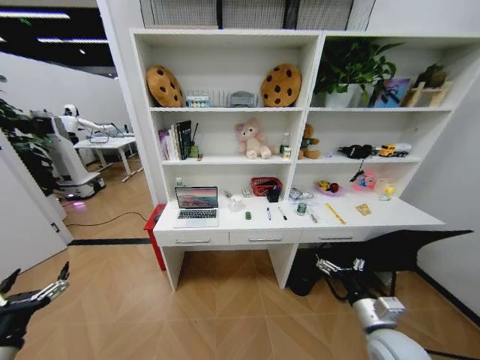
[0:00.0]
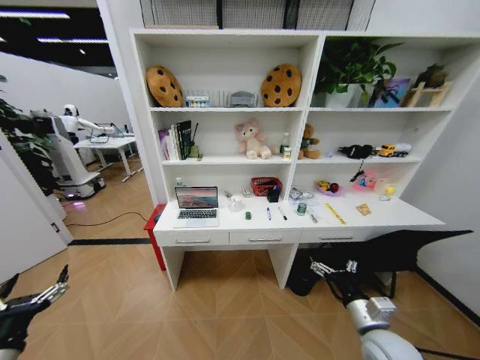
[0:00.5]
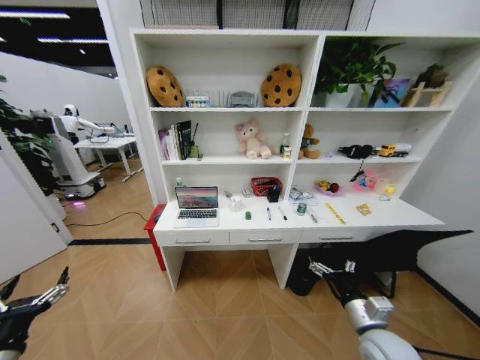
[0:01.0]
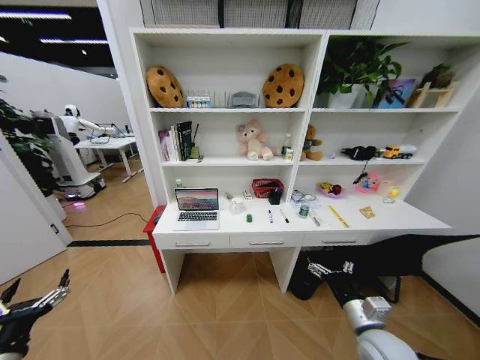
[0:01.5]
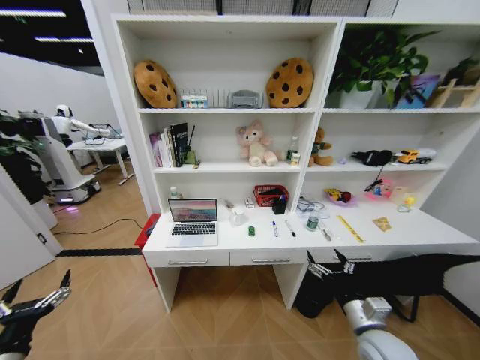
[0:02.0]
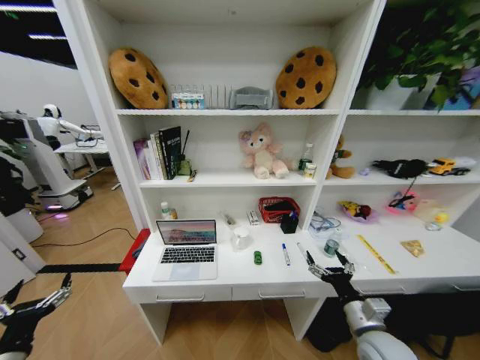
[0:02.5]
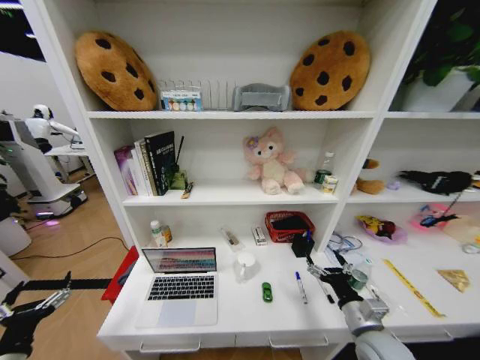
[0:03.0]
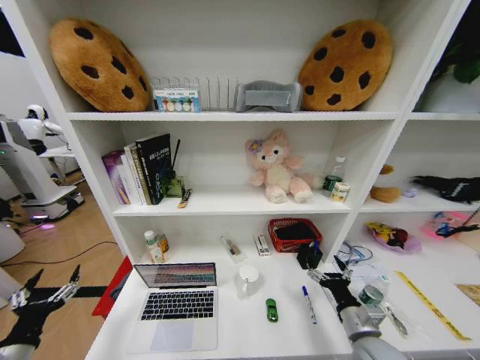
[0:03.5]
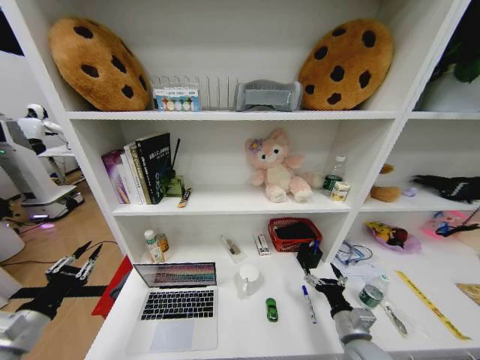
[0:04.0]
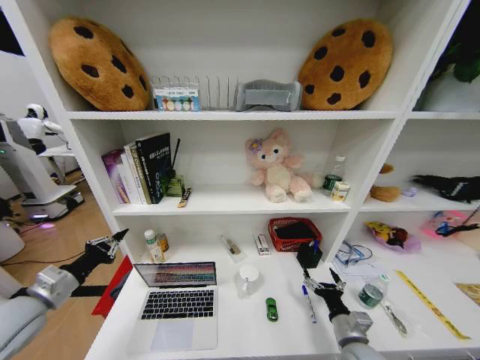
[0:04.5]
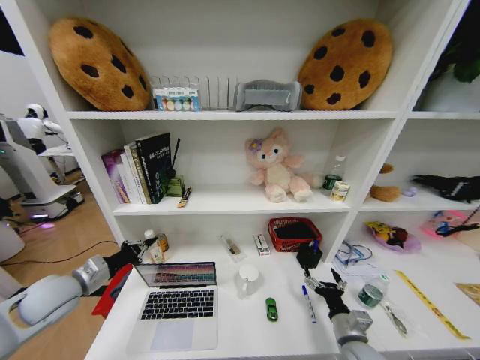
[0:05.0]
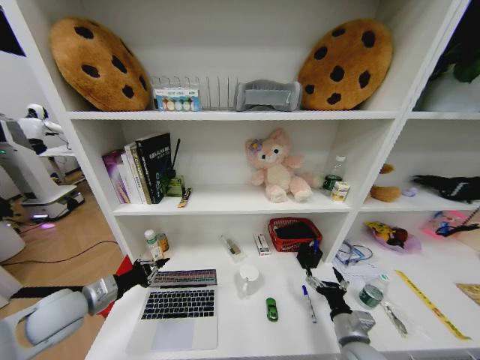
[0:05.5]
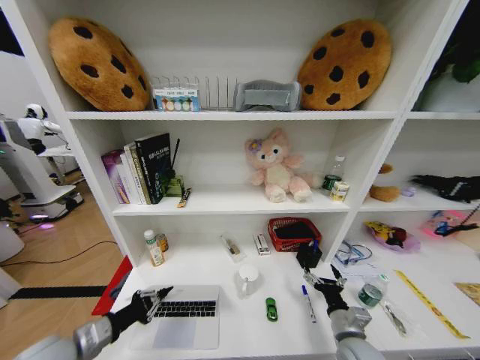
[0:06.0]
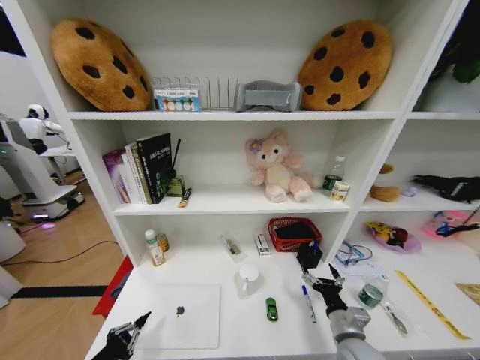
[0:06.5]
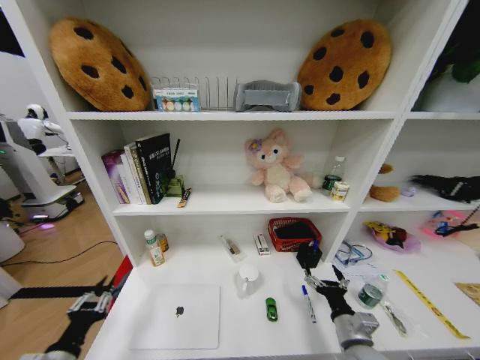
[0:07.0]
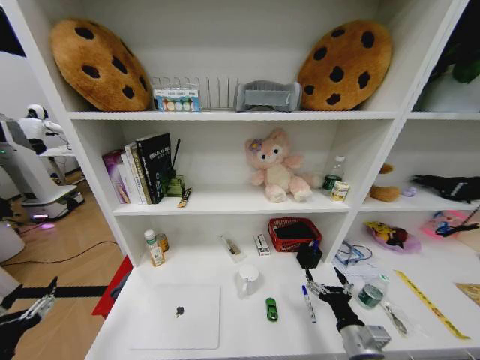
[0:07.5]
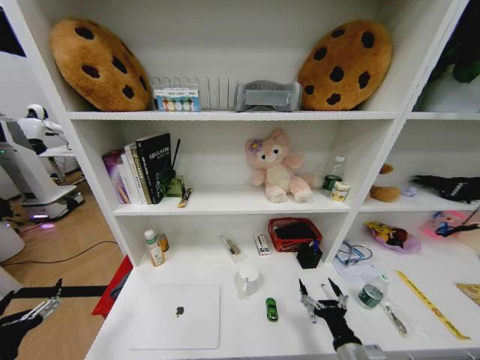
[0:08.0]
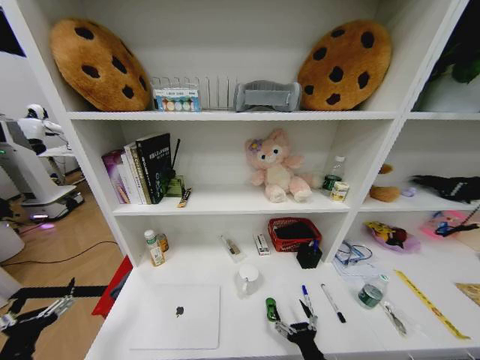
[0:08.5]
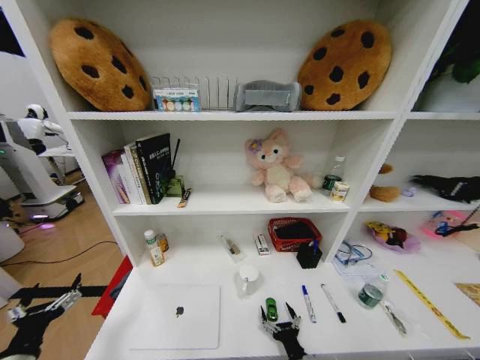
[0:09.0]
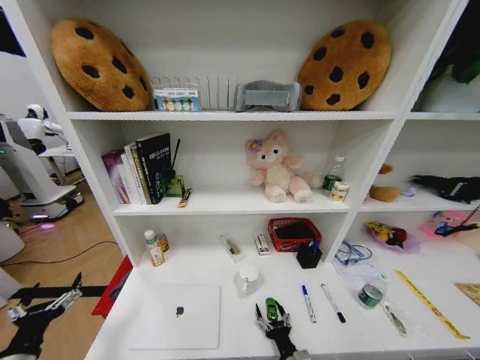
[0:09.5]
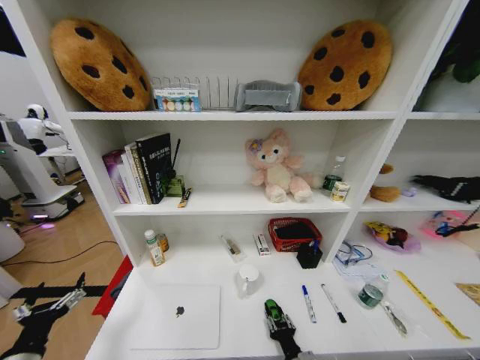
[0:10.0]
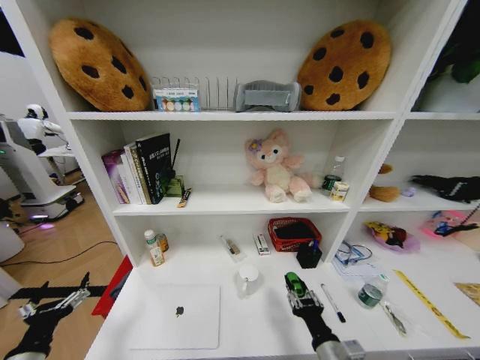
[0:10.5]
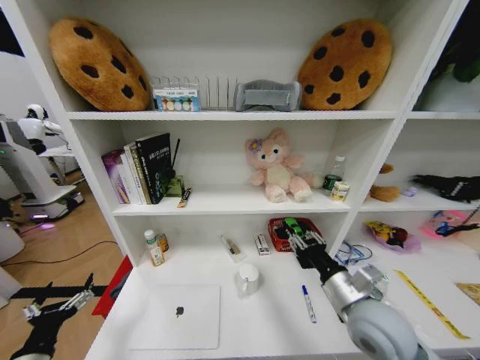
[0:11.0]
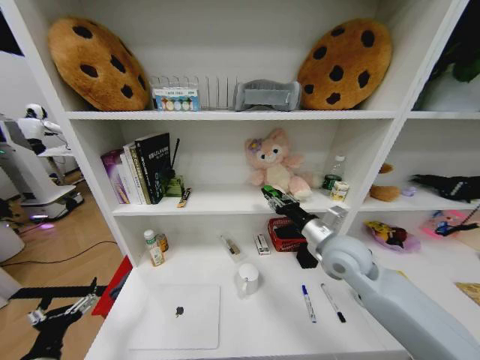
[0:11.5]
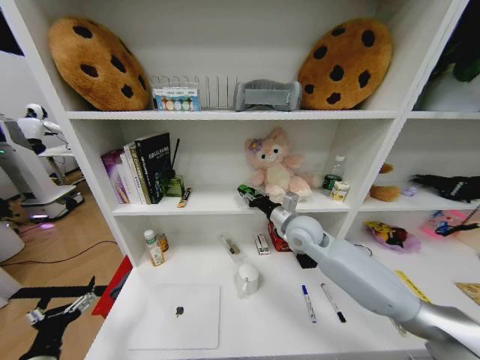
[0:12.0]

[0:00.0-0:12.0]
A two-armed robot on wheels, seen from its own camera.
Task of the whole recording: Organize the objects on the table.
0:02.0 to 0:04.0: The left gripper travels upward and forward by roughly 10 cm, and closes its fingers, while the right gripper moves downward, approximately 5 cm.
0:04.0 to 0:06.0: The left gripper travels to the right by about 10 cm, goes forward and returns, approximately 15 cm each way, and closes.
0:06.0 to 0:08.0: The right gripper moves backward, approximately 10 cm. The left gripper goes some 15 cm backward and to the left, and opens.
0:08.0 to 0:10.0: The right gripper shifts approximately 15 cm downward and to the left, and closes up.
0:10.0 to 0:12.0: The right gripper is displaced forward and upward by about 40 cm.

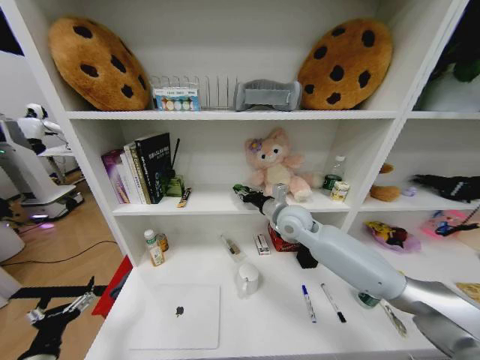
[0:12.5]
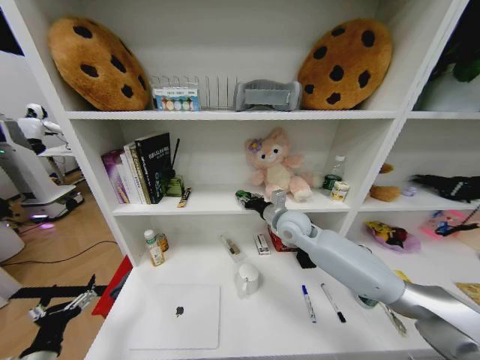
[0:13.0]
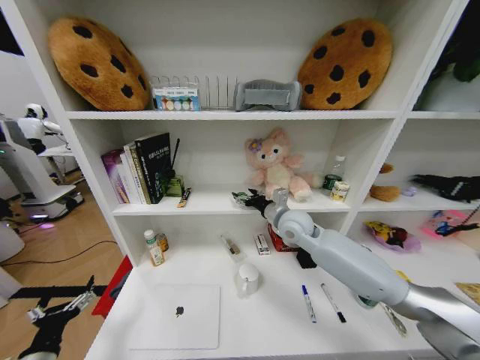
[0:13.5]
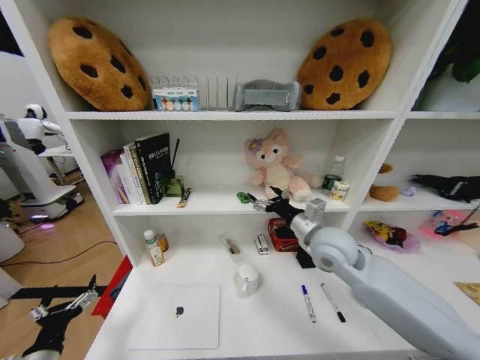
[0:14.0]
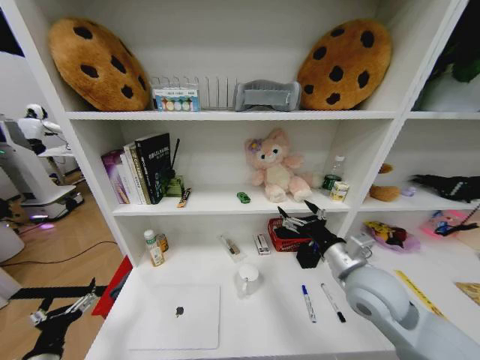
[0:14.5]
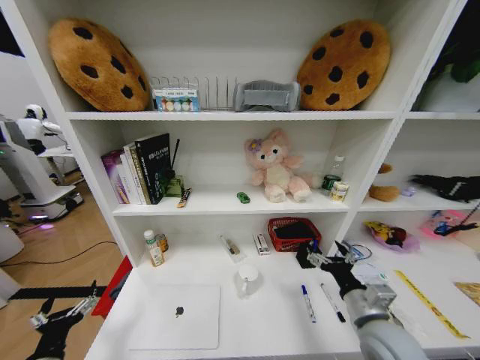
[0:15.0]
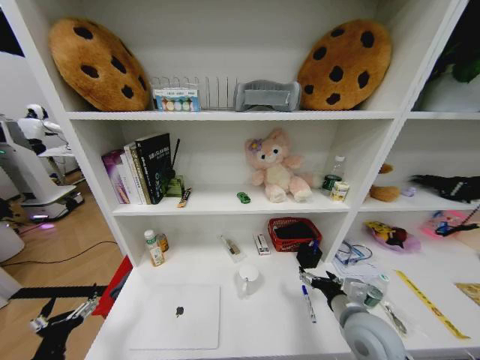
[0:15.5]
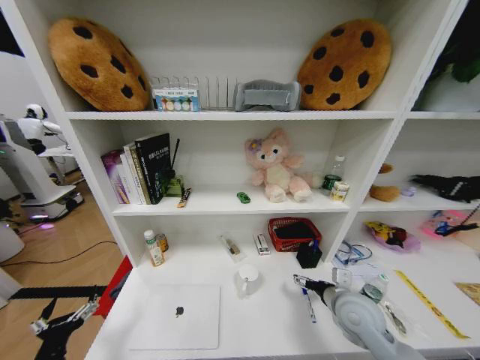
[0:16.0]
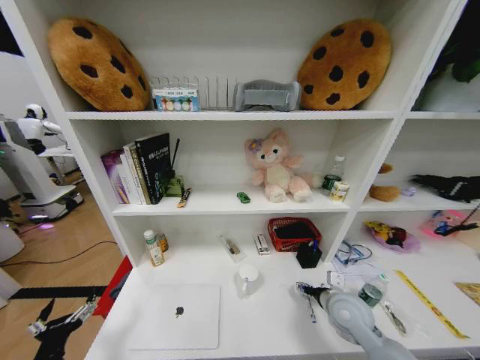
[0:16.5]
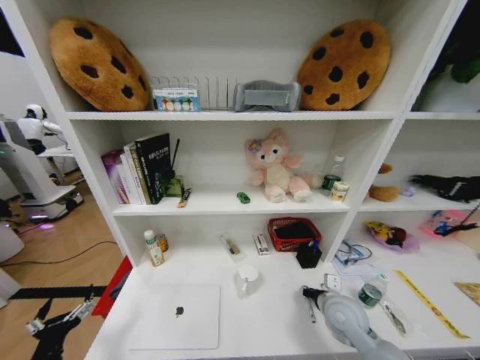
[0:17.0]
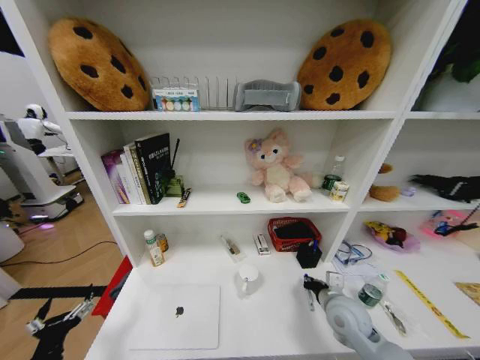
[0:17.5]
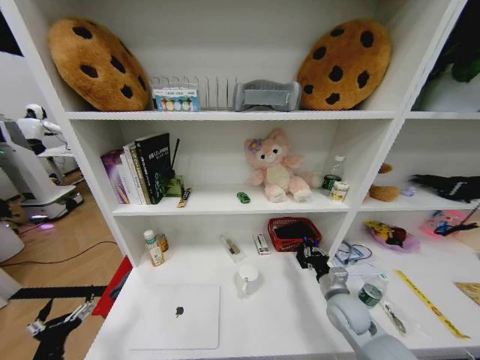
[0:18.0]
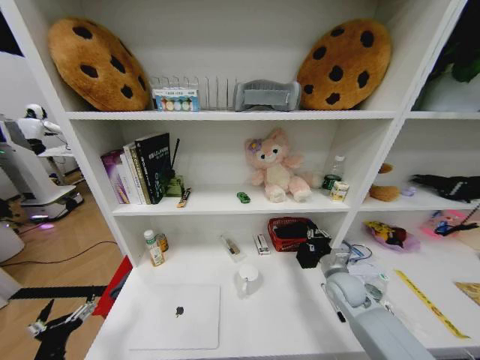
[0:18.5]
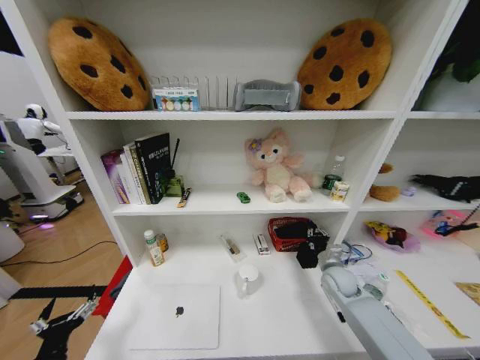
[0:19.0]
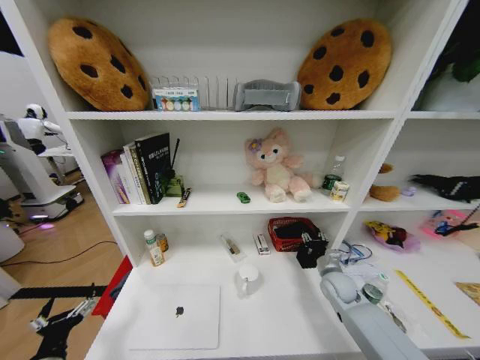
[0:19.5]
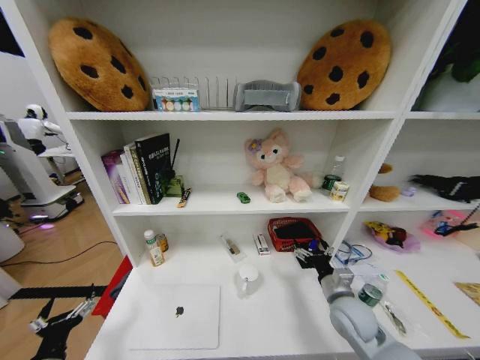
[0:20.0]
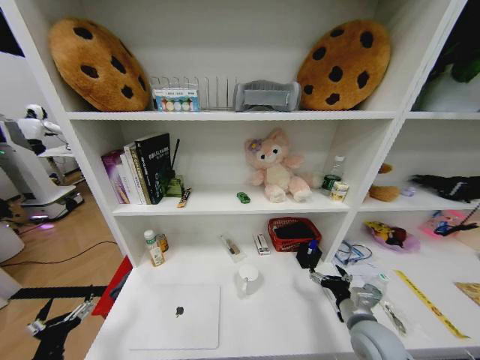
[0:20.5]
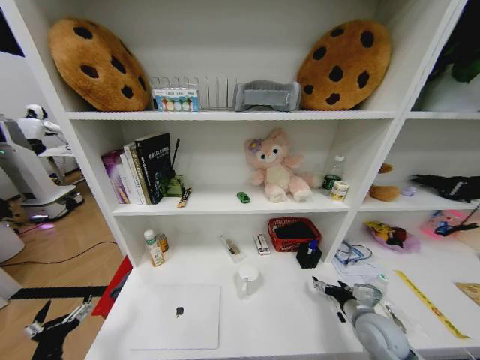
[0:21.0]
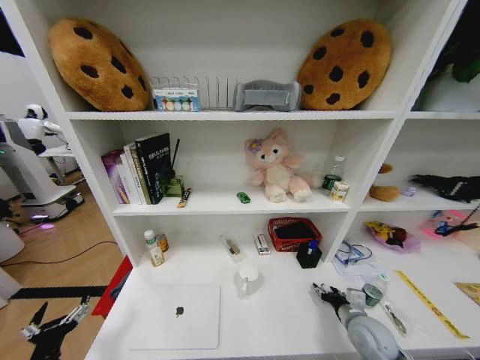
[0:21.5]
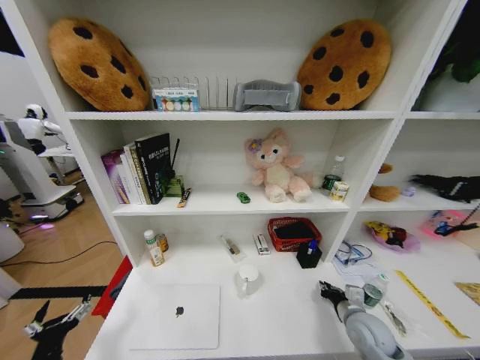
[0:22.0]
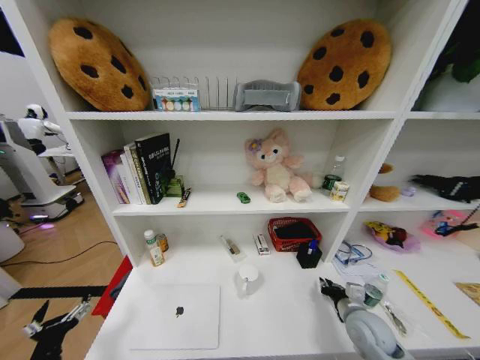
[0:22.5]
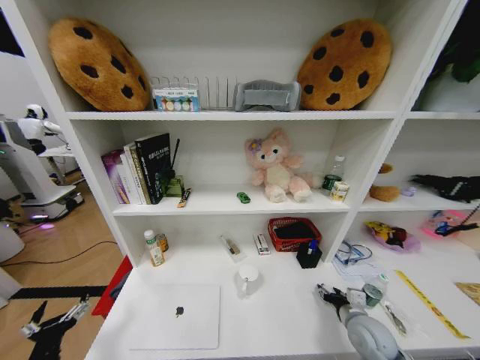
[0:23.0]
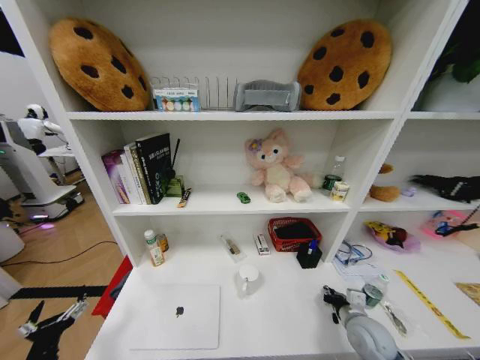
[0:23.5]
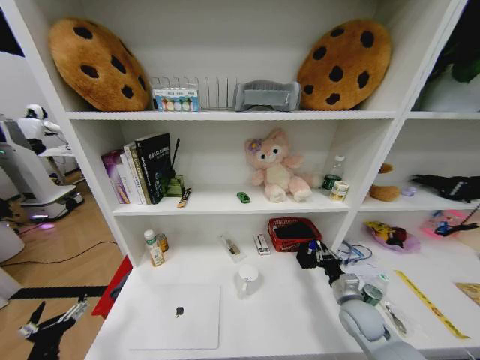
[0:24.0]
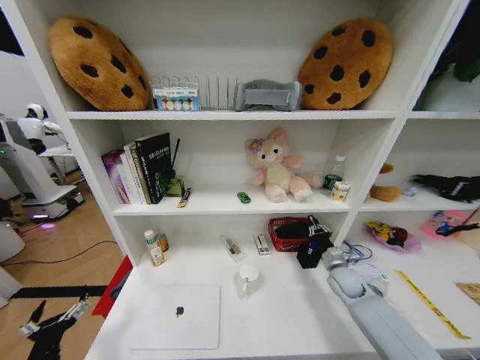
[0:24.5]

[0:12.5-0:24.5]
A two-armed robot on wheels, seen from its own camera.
Task of the whole recording: Organize the objects on the table.
0:12.5 to 0:14.5: The right gripper is displaced backward and to the right by roughly 20 cm, and opens up.
0:14.5 to 0:16.5: The right gripper shifts about 15 cm downward.
0:16.5 to 0:18.5: The right gripper travels forward by about 5 cm, and closes up.
0:18.5 to 0:20.5: The right gripper goes some 15 cm backward, and opens up.
0:20.5 to 0:22.5: The right gripper closes its fingers.
0:22.5 to 0:24.5: The right gripper is displaced forward by some 15 cm, and opens, then closes again.

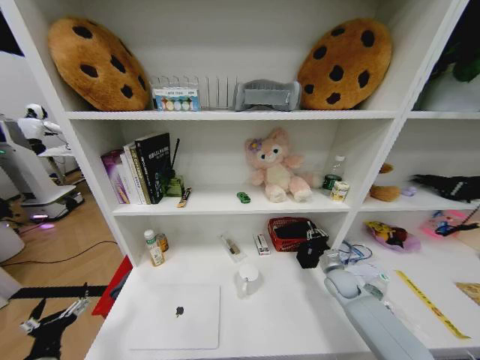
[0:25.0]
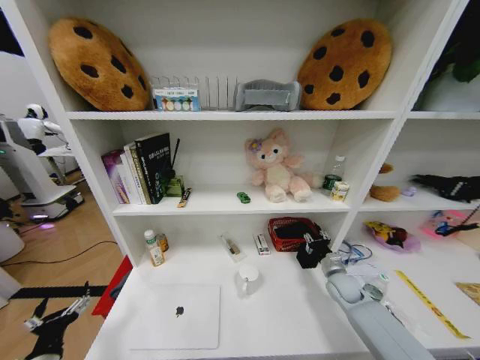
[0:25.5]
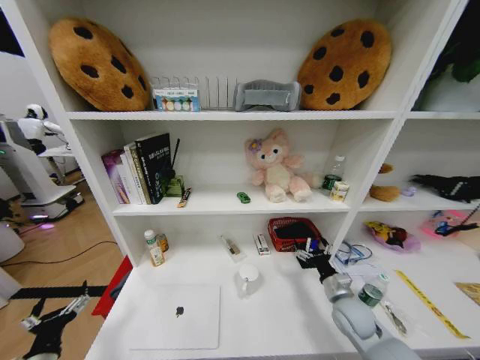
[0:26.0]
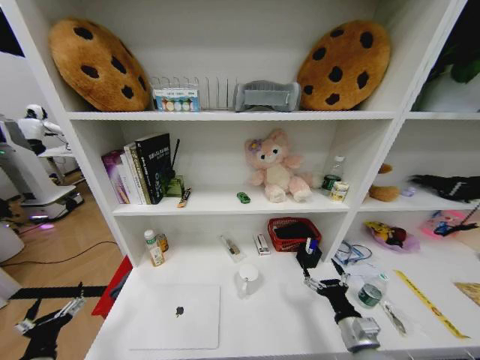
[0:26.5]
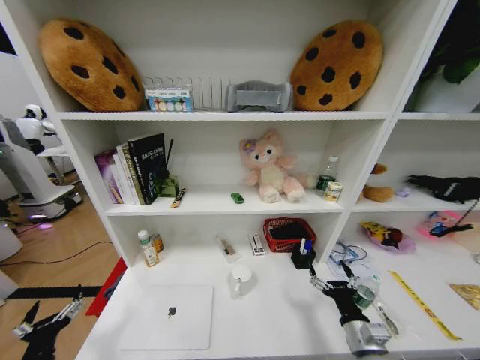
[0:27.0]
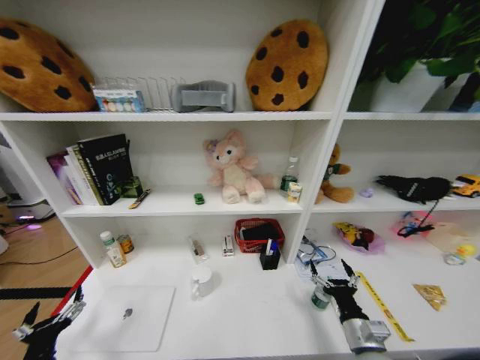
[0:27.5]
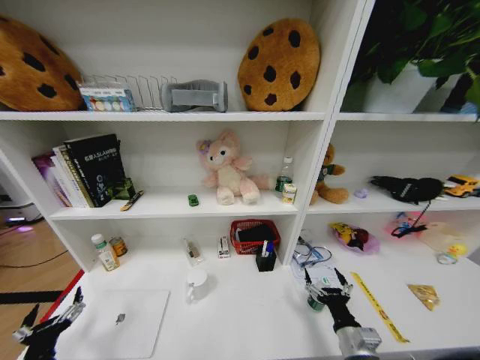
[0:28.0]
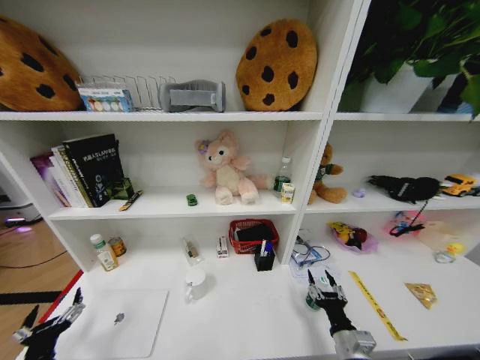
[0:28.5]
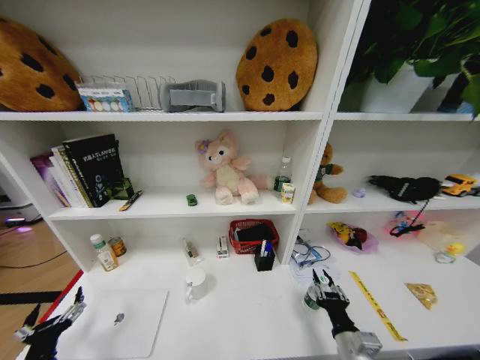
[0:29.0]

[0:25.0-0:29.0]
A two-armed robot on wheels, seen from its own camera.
Task of the whole recording: Organize the objects on the table.
0:25.0 to 0:27.0: The right gripper goes approximately 25 cm backward, and opens.
0:27.0 to 0:29.0: The right gripper closes its fingers.
